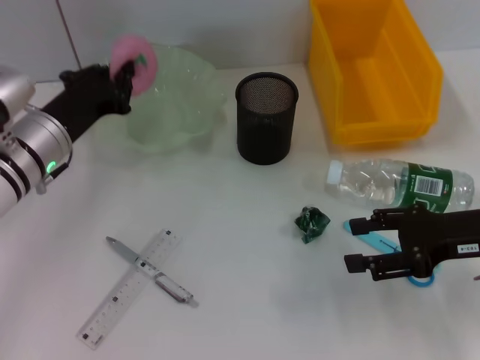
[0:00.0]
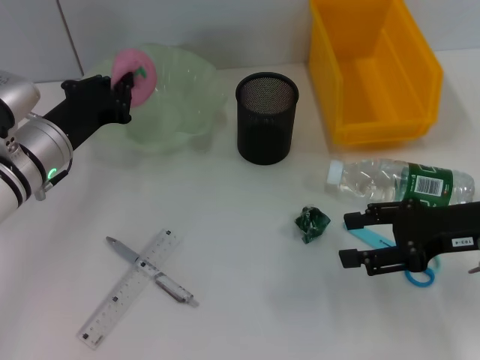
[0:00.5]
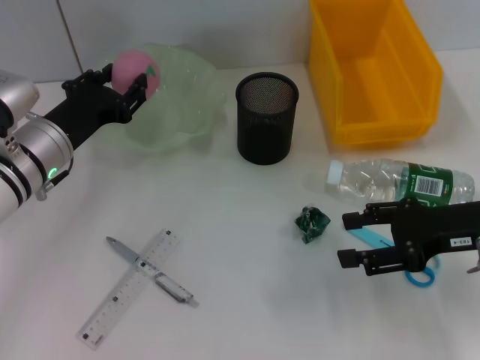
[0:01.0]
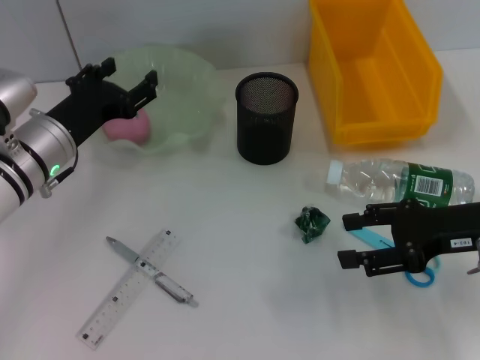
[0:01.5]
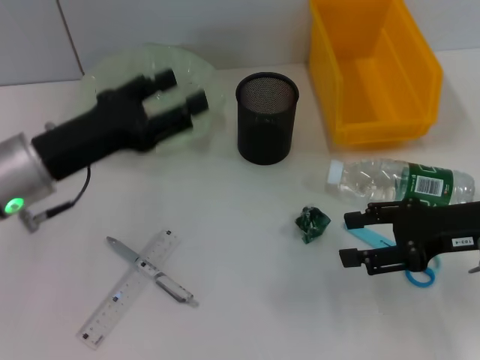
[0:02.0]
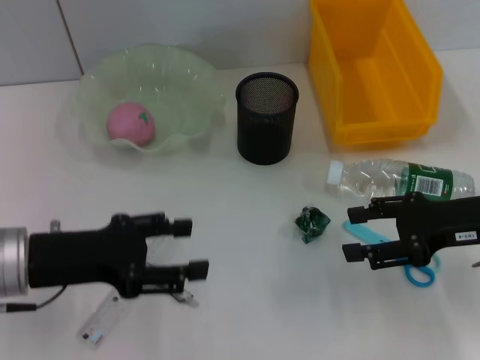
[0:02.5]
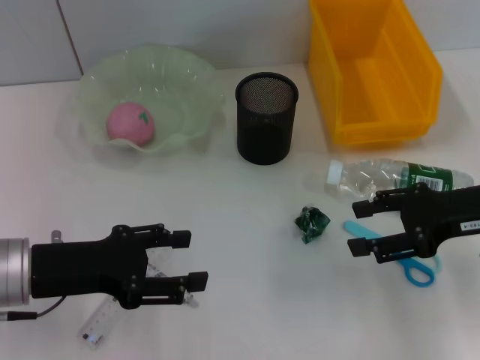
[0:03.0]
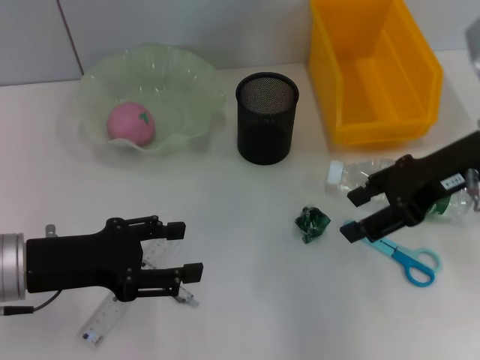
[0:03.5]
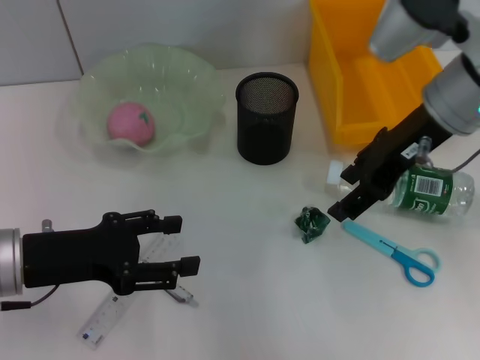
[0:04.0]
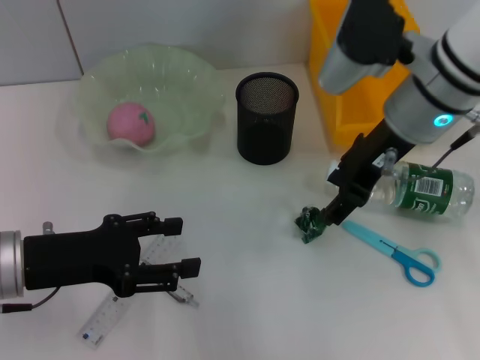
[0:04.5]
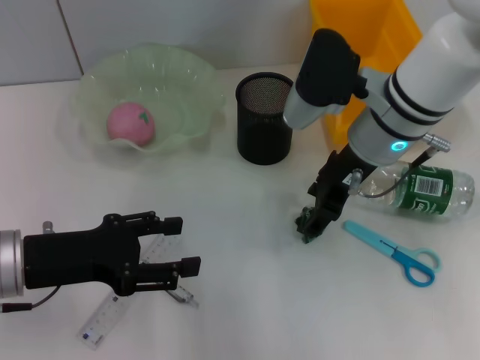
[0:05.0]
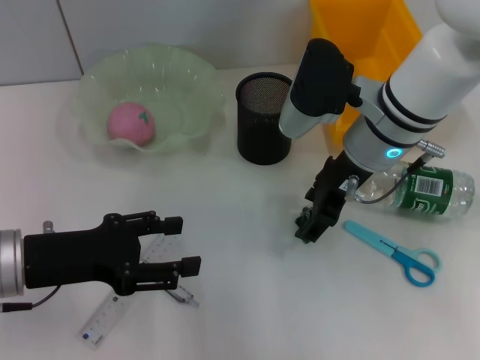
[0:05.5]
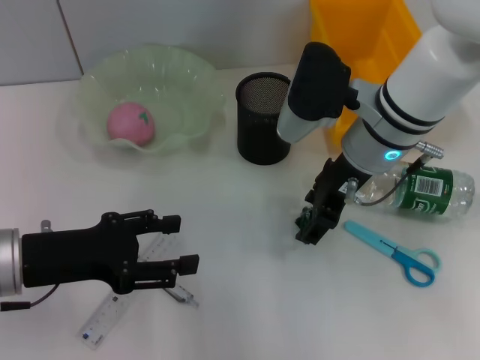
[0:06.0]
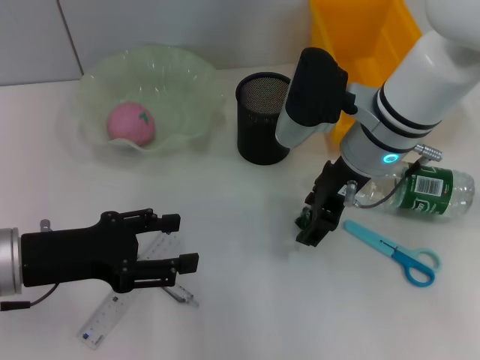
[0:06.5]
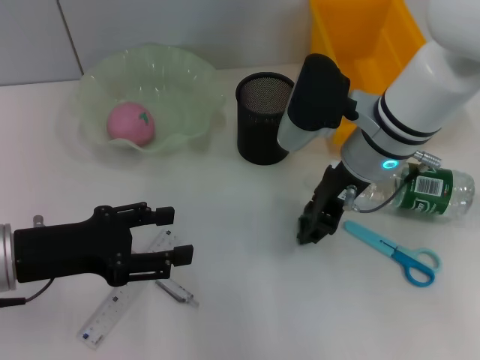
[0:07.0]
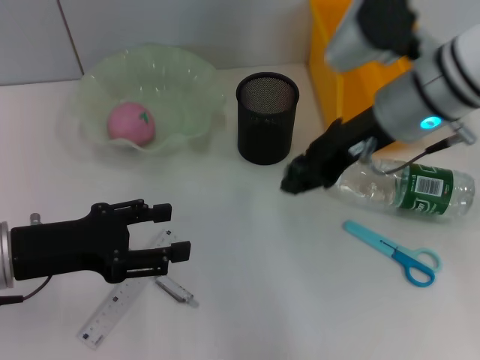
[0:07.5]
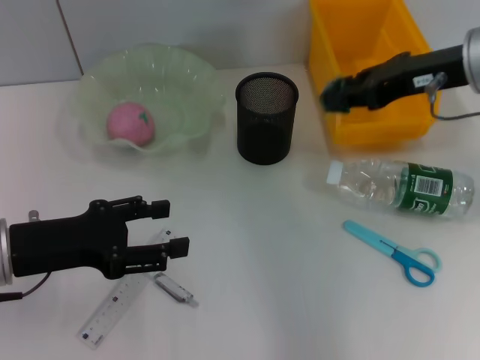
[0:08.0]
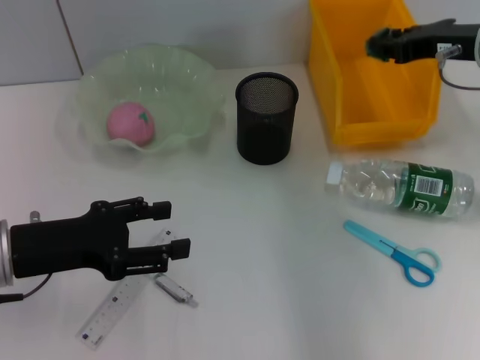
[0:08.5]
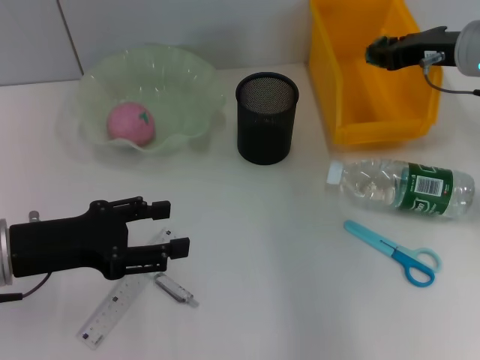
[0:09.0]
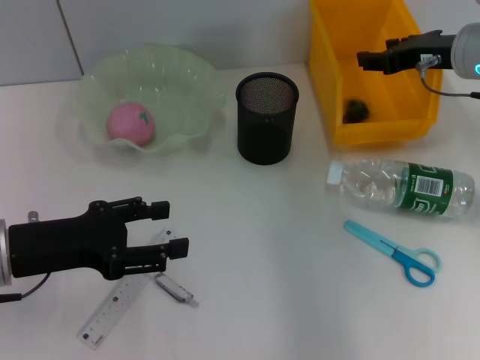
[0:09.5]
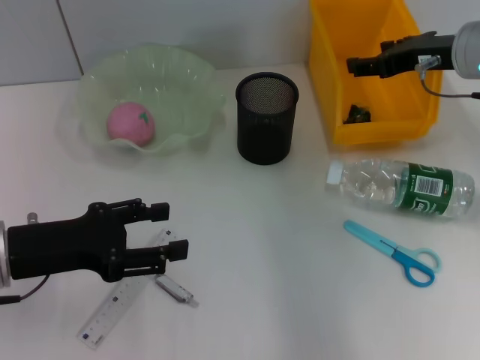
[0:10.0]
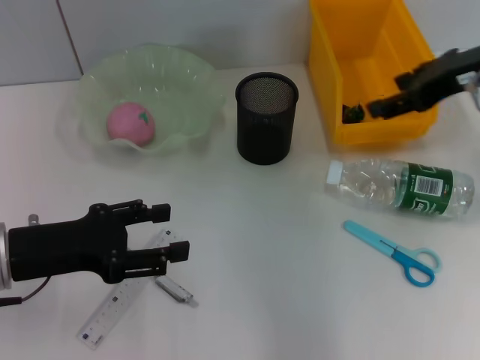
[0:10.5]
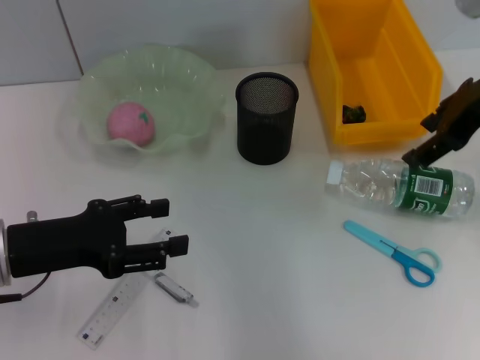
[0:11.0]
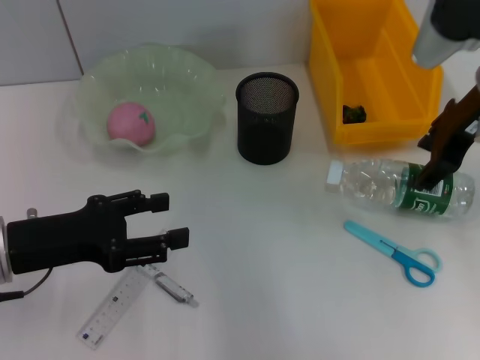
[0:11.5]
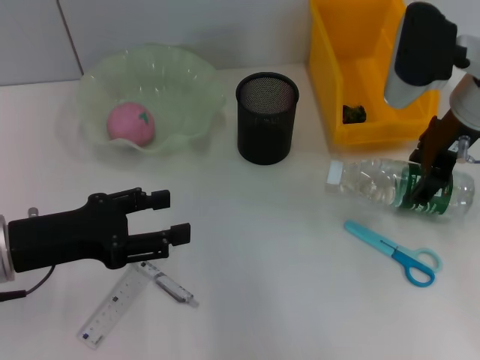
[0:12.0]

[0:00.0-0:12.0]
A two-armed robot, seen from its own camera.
Step, 2.0 to 7.0 s: Grab the plastic with the right hand.
Step, 7.5 to 10.0 s: Place the plastic into the trash can with the right hand.
0.0 to 2.0 s: The left gripper heads backward, covering approximately 5 cm, and opens.
2.0 to 4.0 s: The right gripper heads upward, to the left and forward, covering approximately 15 cm. The left gripper shifts by approximately 5 cm.
4.0 to 6.0 s: The right gripper heads downward and to the left, covering some 10 cm.
6.0 to 8.0 s: The right gripper goes some 15 cm to the right and upward, and closes its fingers.
8.0 to 10.0 s: The right gripper ends up some 5 cm from where it was, and opens.

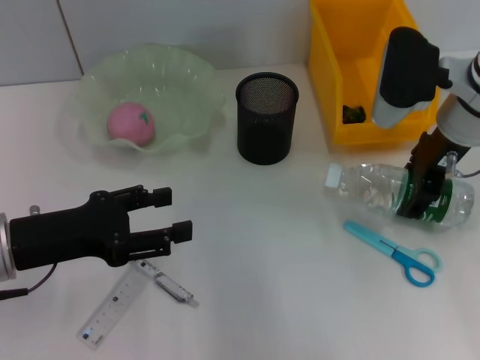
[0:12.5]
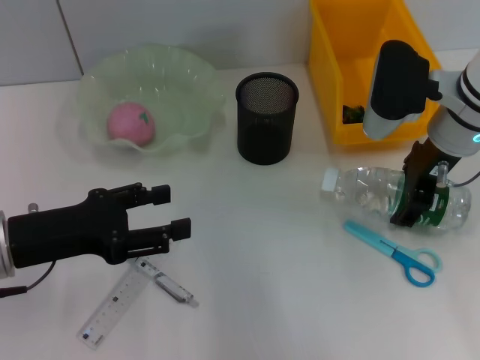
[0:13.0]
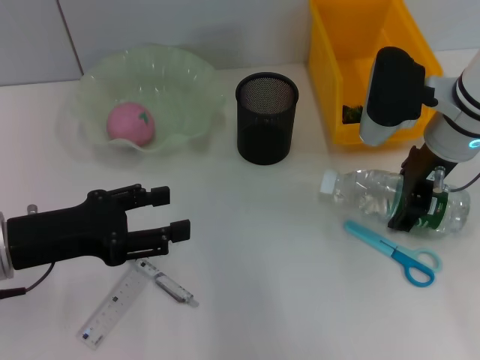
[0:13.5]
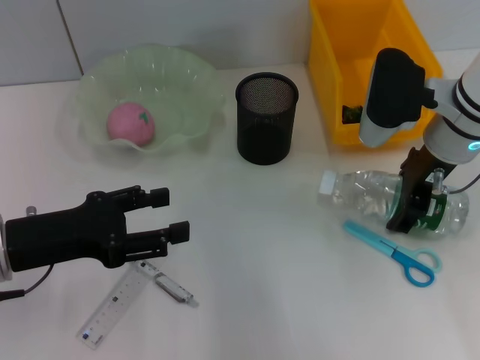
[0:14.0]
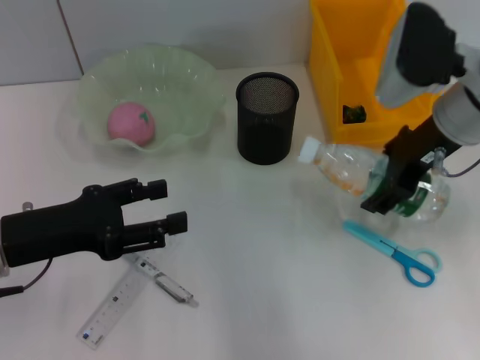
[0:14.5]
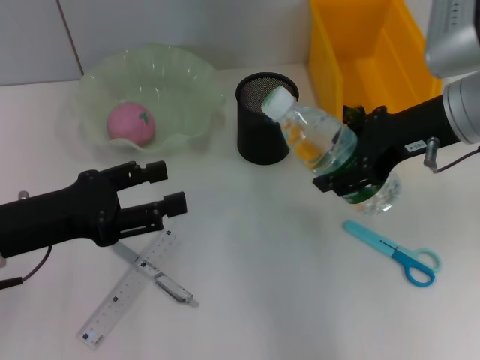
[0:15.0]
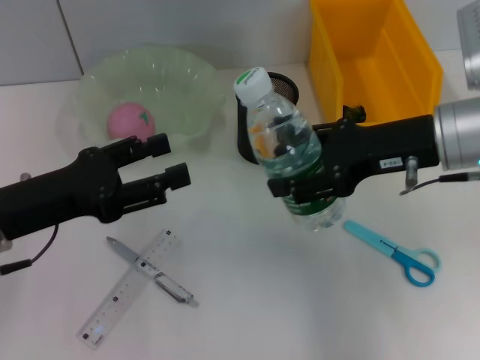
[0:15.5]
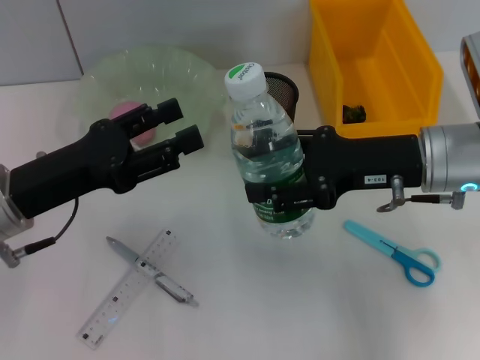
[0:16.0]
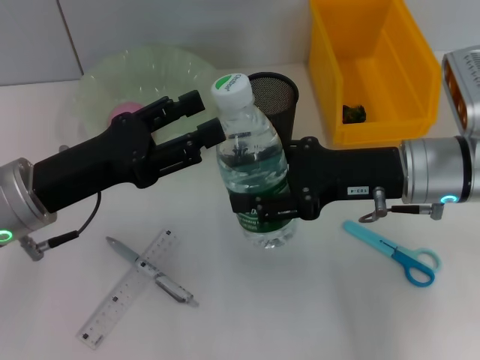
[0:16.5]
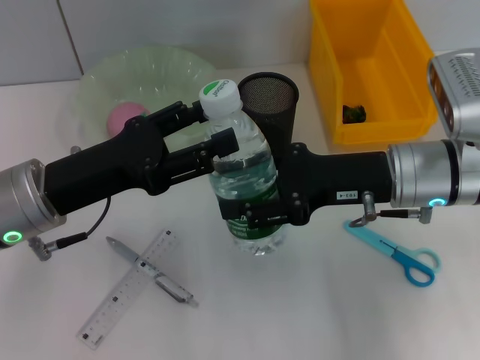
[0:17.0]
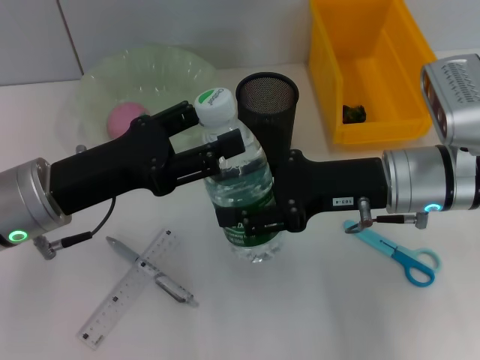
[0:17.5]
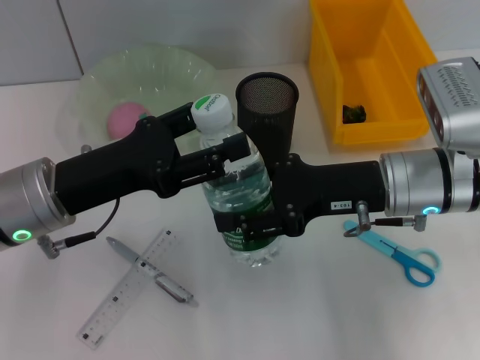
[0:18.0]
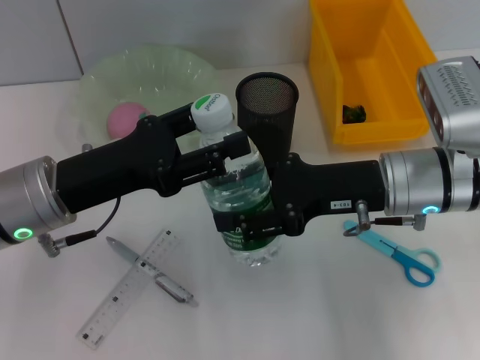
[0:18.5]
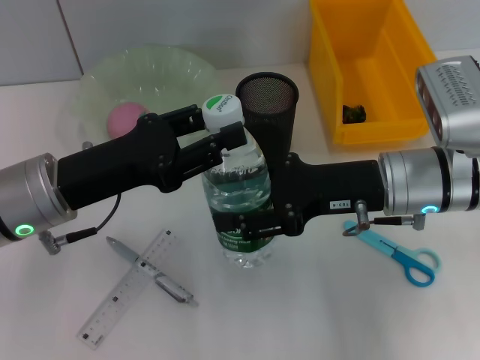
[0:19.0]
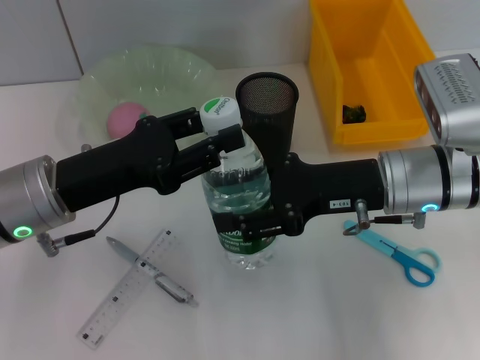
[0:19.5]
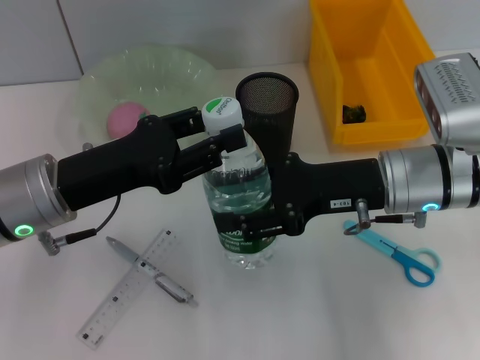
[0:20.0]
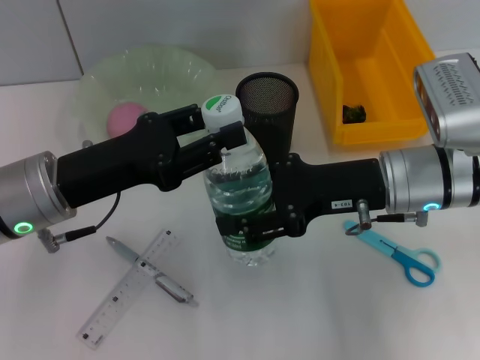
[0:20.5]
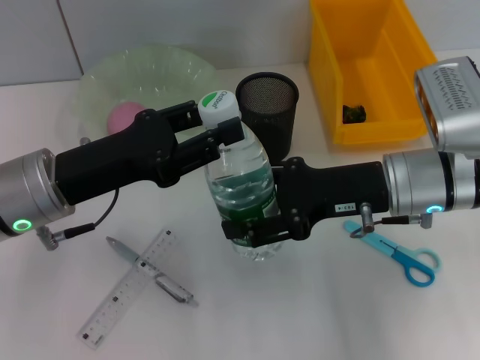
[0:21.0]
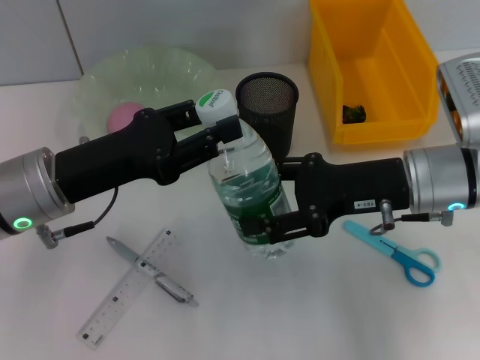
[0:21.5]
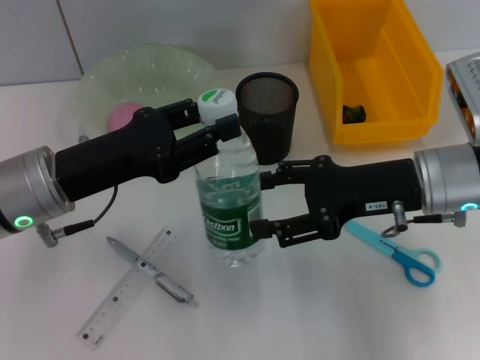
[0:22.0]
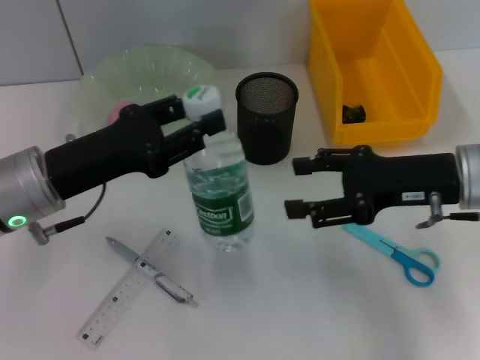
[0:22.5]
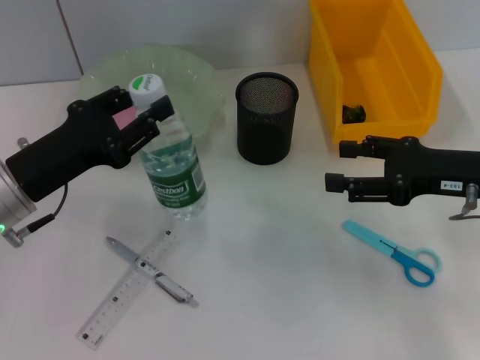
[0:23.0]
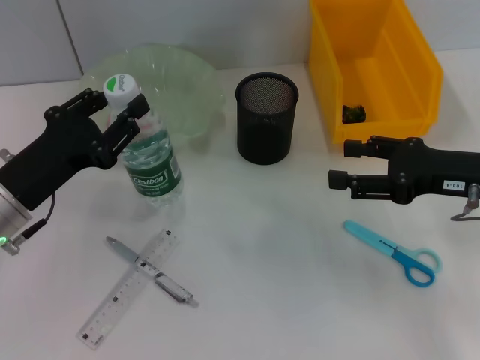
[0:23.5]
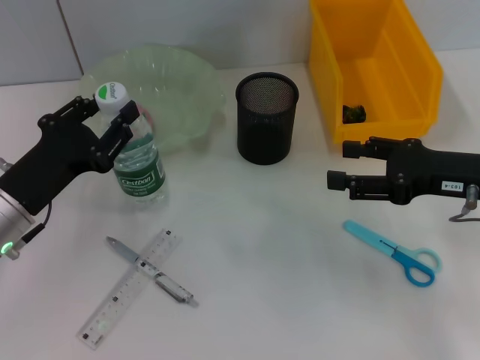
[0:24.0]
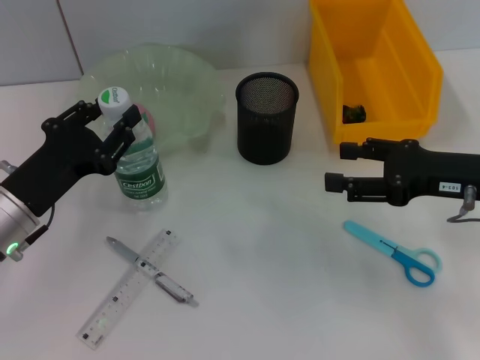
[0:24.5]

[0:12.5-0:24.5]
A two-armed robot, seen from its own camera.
Step, 14.5 to 22.0 s: Pass the water bottle from the right hand to the left hand.
12.5 to 14.5 s: The grippers make only small movements.
14.5 to 16.5 s: The right gripper shifts some 10 cm downward and backward.
16.5 to 18.5 s: The grippers stay close to where they were, moving slightly.
18.5 to 20.5 s: The left gripper closes up.
20.5 to 22.5 s: The right gripper shifts some 5 cm to the right.
22.5 to 24.5 s: The left gripper travels downward by some 5 cm.

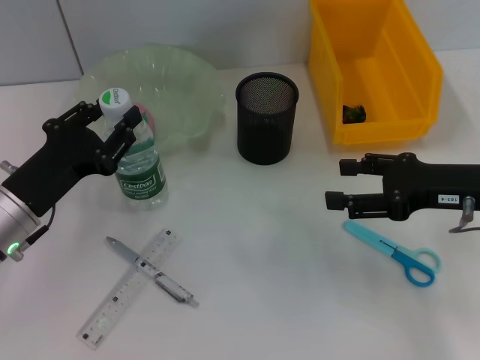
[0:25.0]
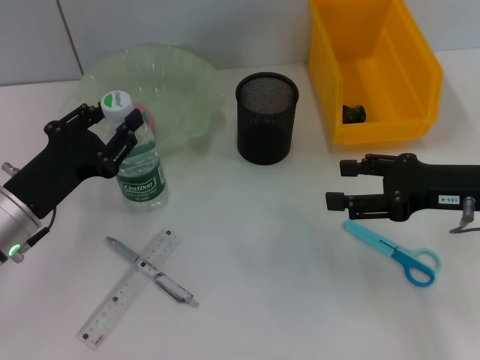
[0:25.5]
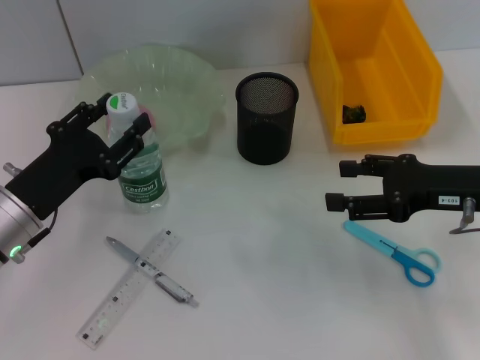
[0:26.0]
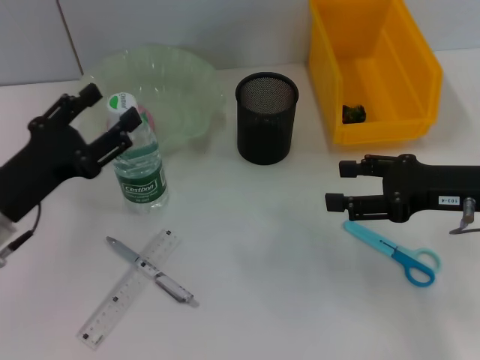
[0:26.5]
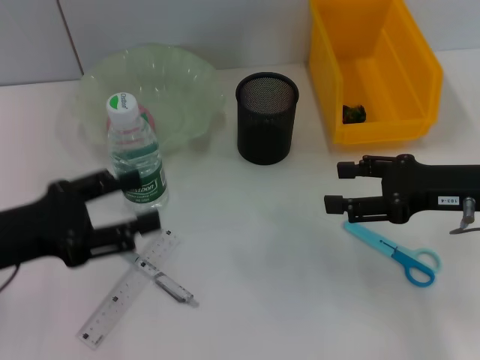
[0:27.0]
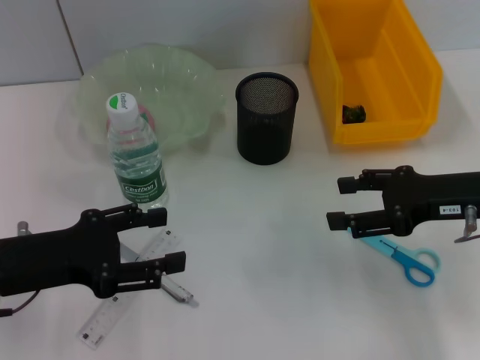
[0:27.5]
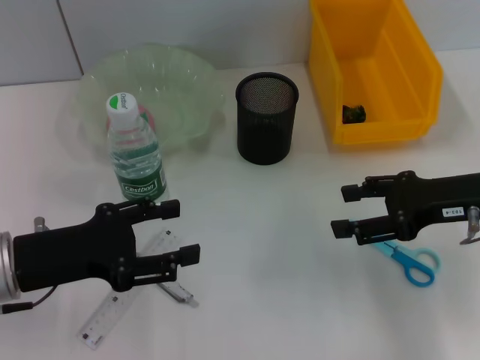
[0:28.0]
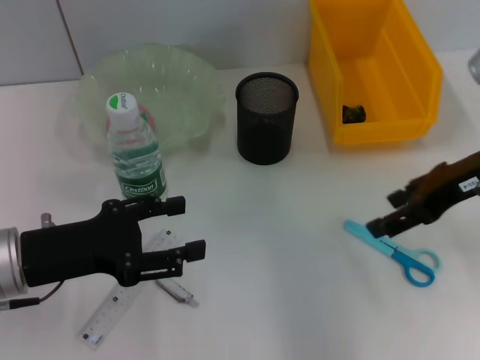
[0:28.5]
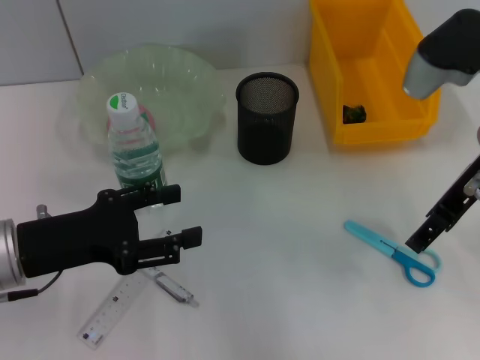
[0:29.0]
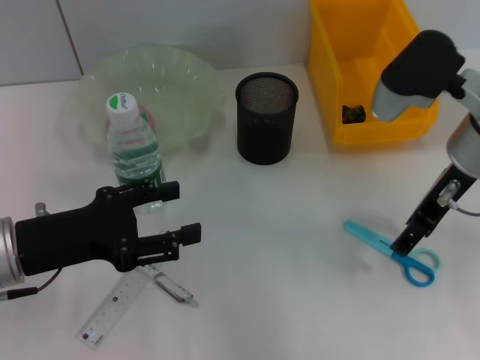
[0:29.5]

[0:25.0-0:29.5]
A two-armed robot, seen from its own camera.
25.0 to 27.0 s: The left gripper is displaced upward by about 5 cm, and opens.
27.0 to 29.5 s: The right gripper shifts about 10 cm to the left and upward.
